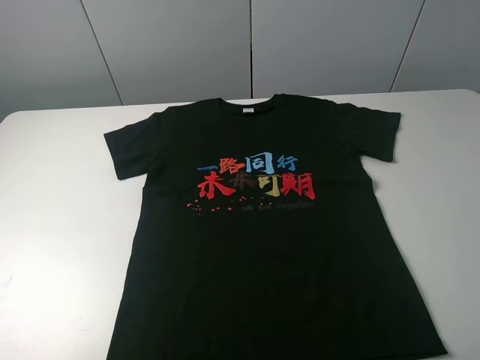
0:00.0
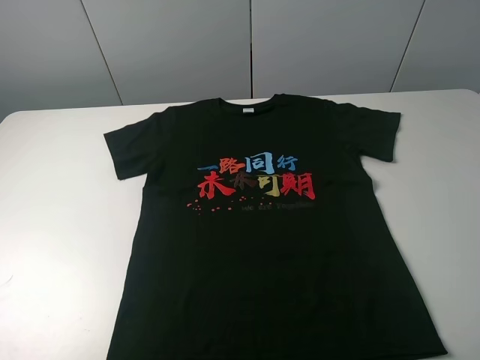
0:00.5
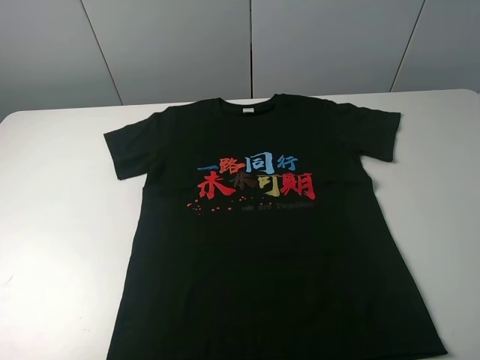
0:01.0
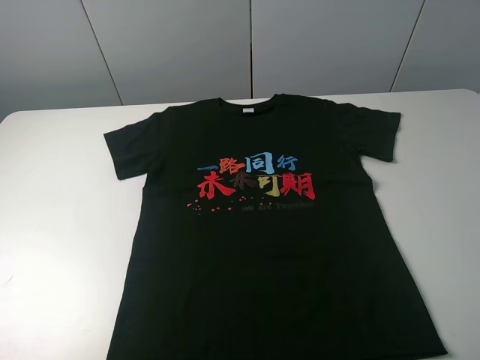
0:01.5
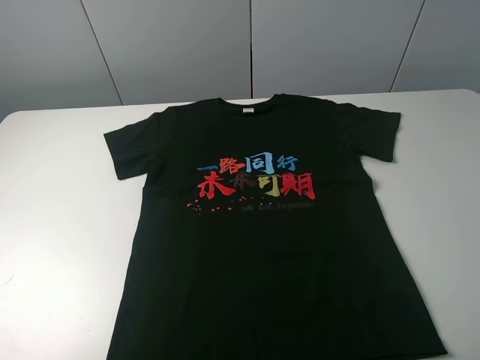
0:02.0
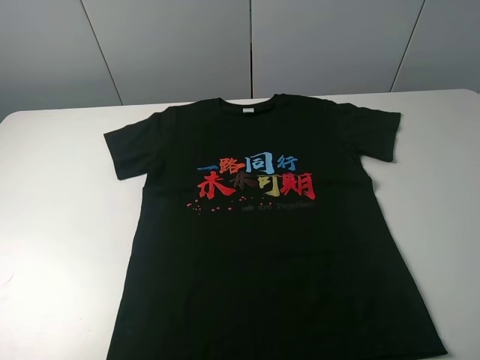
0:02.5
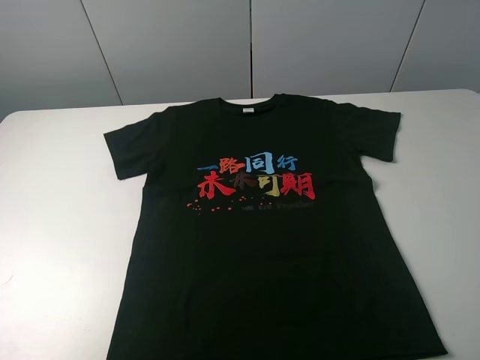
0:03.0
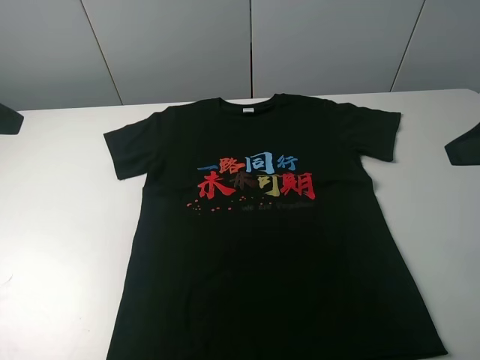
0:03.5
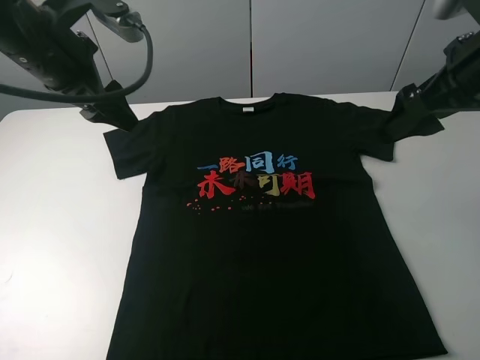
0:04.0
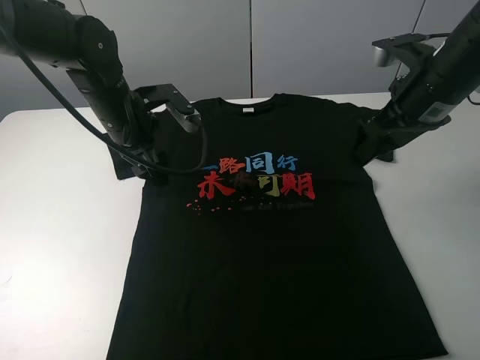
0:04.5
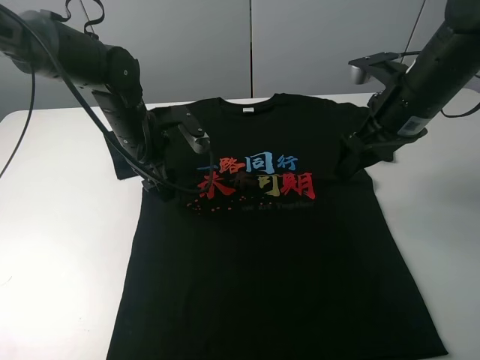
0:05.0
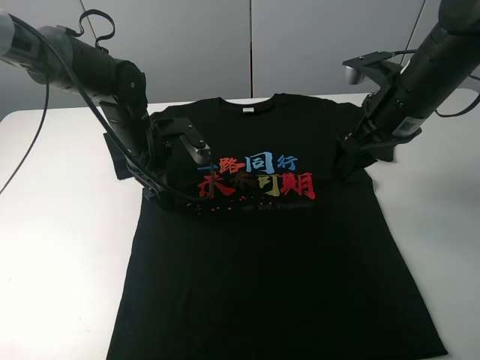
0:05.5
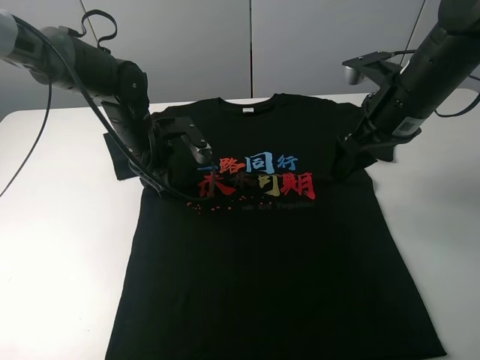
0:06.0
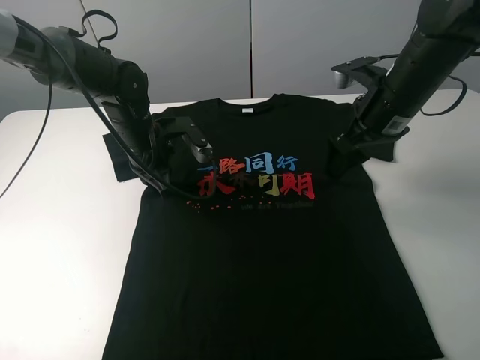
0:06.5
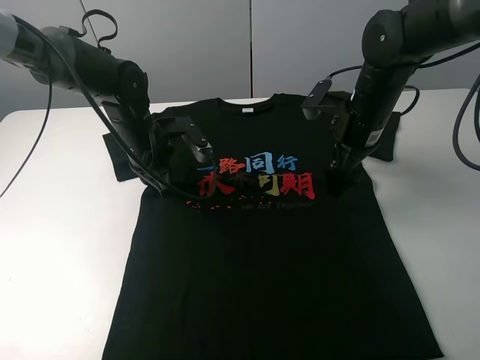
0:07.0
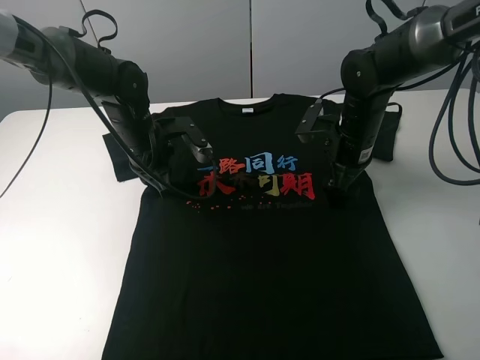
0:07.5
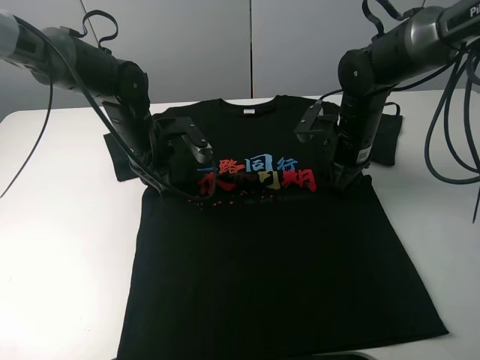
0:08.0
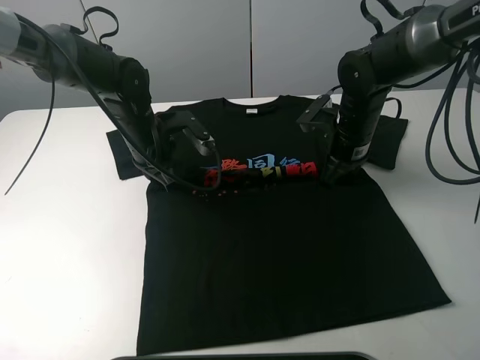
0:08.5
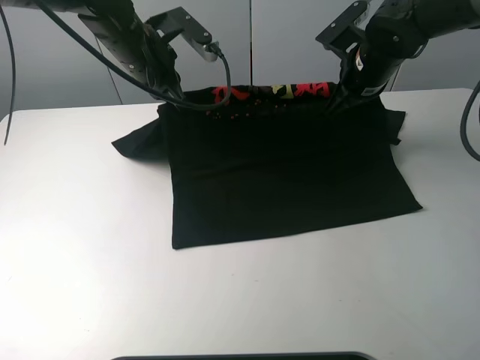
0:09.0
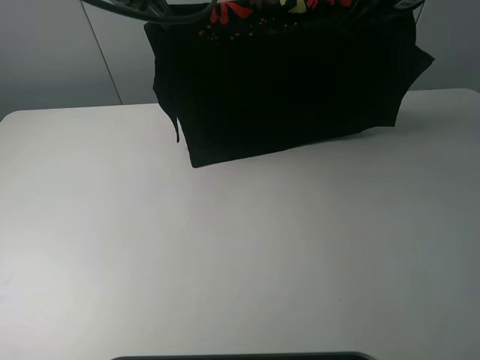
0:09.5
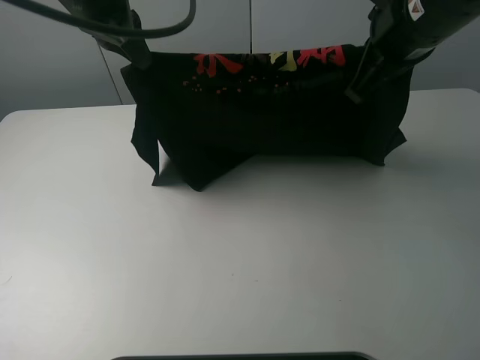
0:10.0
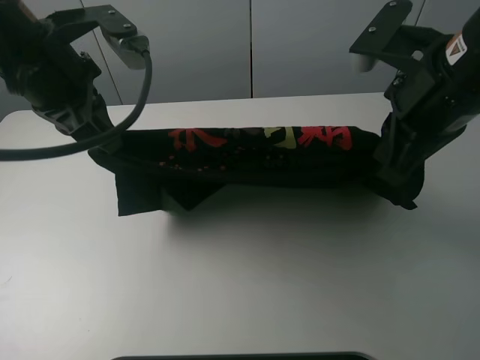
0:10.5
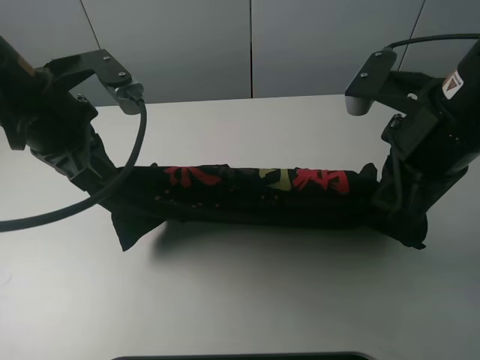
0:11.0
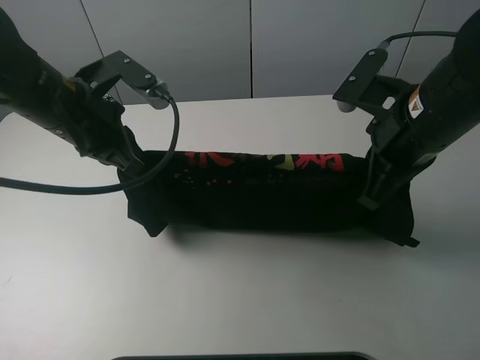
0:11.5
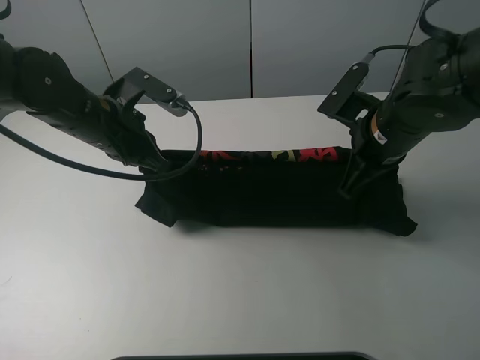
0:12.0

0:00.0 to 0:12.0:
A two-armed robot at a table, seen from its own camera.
Task of the whole recording: fold the clothes on the table.
Step, 0:00.0 to 0:07.0: Lift the black T-shirt with the left gripper.
0:00.0 to 0:02.0: The two grippers keep their place.
0:02.0 to 0:04.0: The left gripper heads forward and to the right, covering roughly 35 cm. Meanwhile the right gripper travels forward by approximately 25 cm.
0:04.0 to 0:06.0: The right gripper shifts about 10 cm downward, while the left gripper travels downward by roughly 15 cm, and closes up.
0:06.0 to 0:08.0: The right gripper travels downward by approximately 10 cm, and closes its fingers.
0:08.0 to 0:10.0: Both grippers travel together upward, some 20 cm.
0:10.0 to 0:12.0: Both grippers move downward, roughly 15 cm.

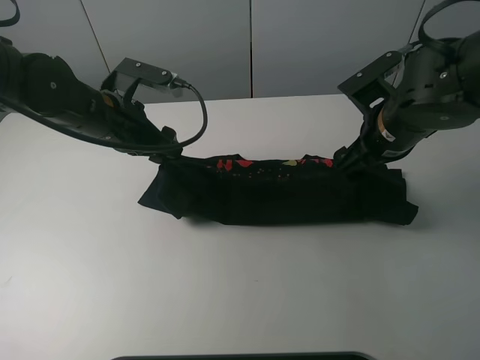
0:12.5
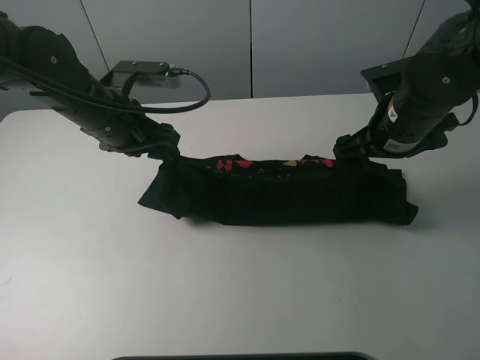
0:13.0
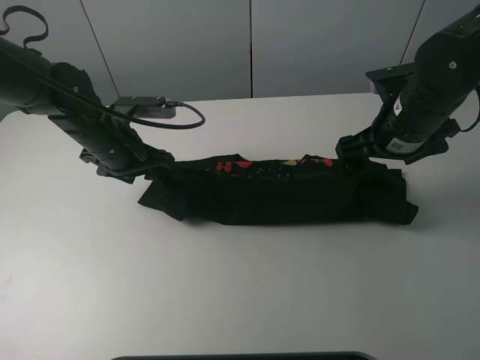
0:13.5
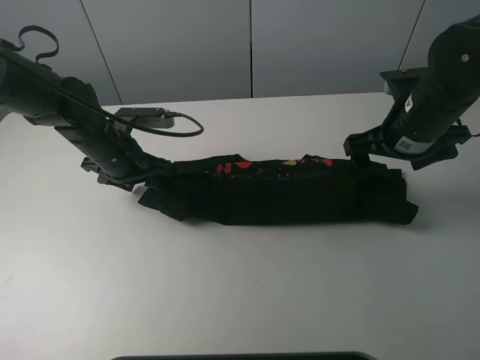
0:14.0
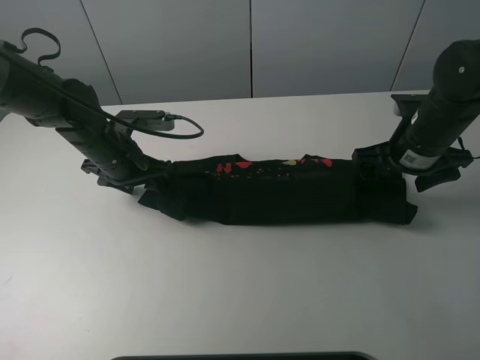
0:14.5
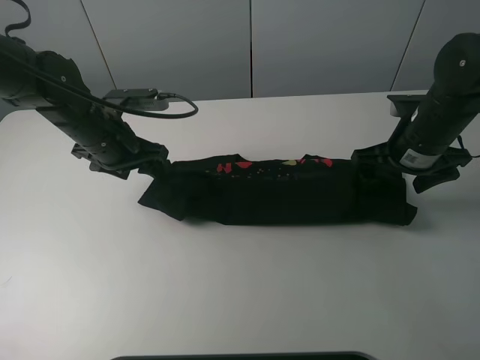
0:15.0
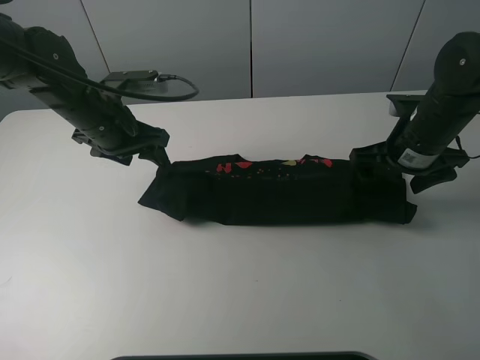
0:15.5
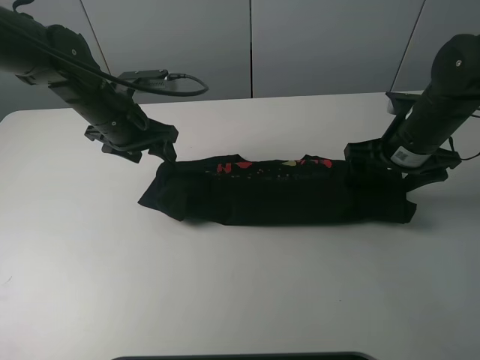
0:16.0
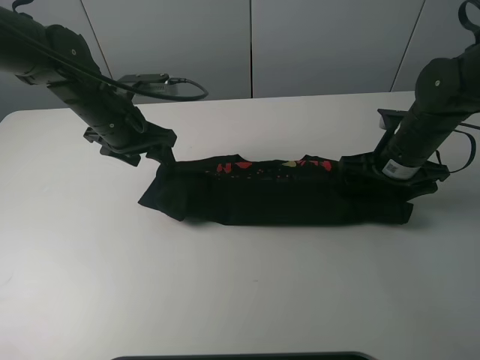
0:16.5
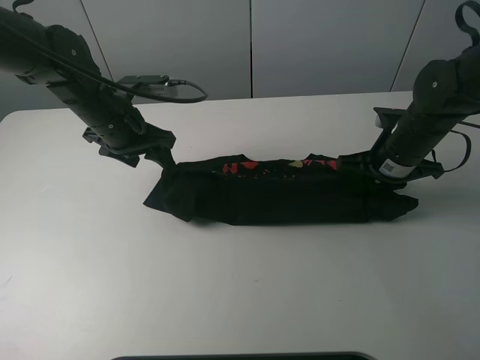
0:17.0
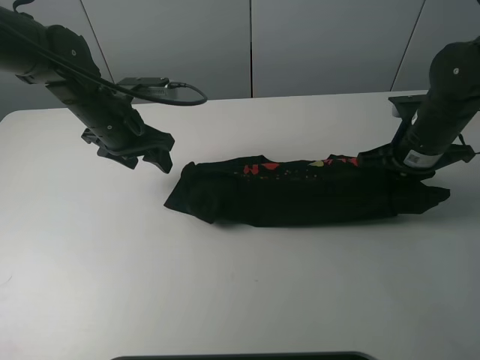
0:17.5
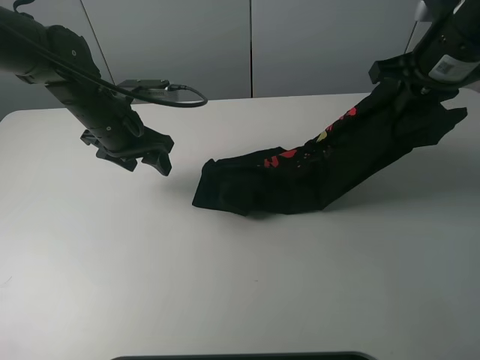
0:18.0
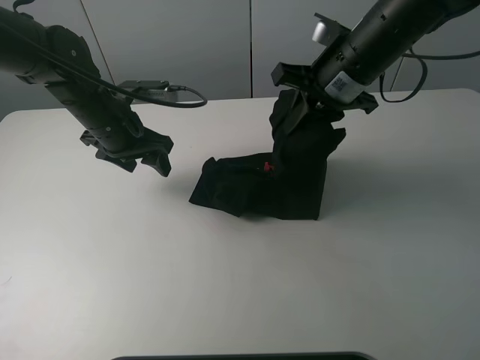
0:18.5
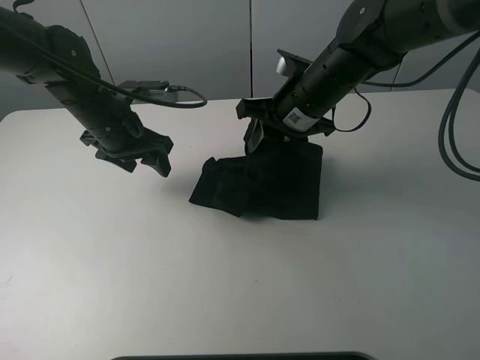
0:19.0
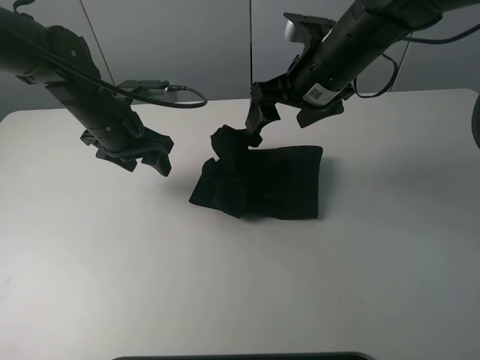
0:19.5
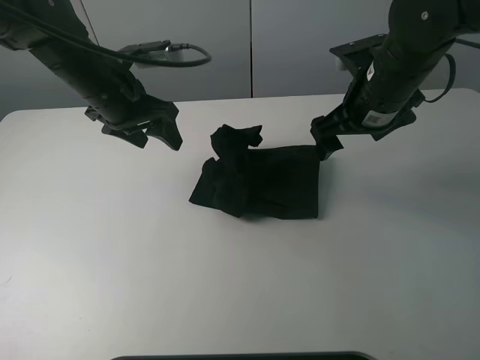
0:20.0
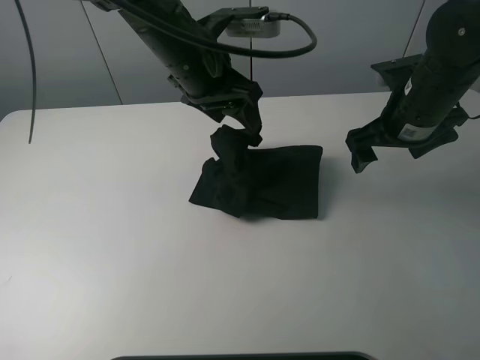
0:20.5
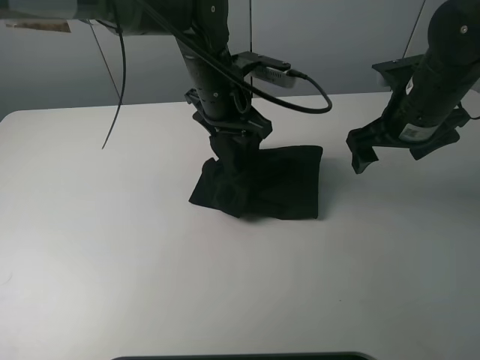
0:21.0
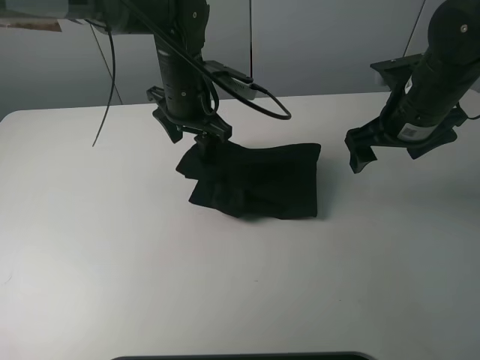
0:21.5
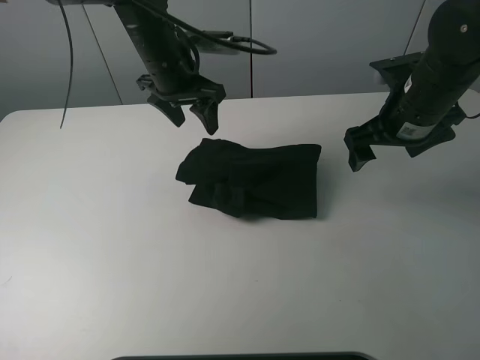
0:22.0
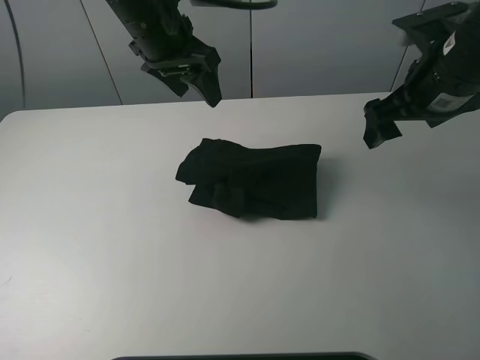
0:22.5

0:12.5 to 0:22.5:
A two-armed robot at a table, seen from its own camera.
Task of the whole recording: fold the clothes on the table.
Step, 0:13.0 to 0:16.5: Grasp the black T-shirt with the right gripper.
Step, 0:17.0 to 0:21.5: Fold the black T-shirt from right to left with right gripper.
0:12.5 to 0:14.5: The left gripper shifts roughly 5 cm downward, while the right gripper goes some 5 cm to the right.
0:14.5 to 0:16.5: The left gripper goes roughly 5 cm upward.
0:16.5 to 0:18.5: The right gripper travels upward and to the left by approximately 15 cm, and closes up.
0:18.5 to 0:20.5: The left gripper shifts some 15 cm to the right and upward. Meanwhile the right gripper goes roughly 10 cm to the right, and opens up.
0:20.5 to 0:22.5: The right gripper is displaced upward by approximately 5 cm, while the left gripper travels to the left by roughly 5 cm.

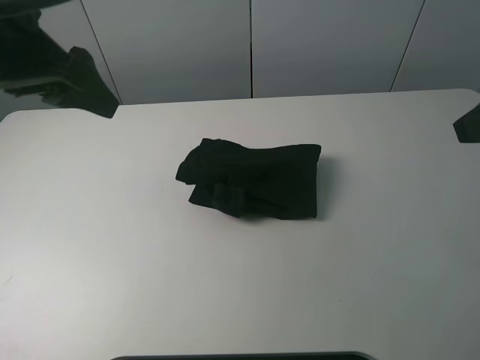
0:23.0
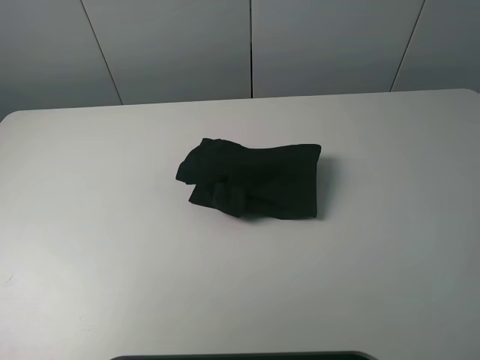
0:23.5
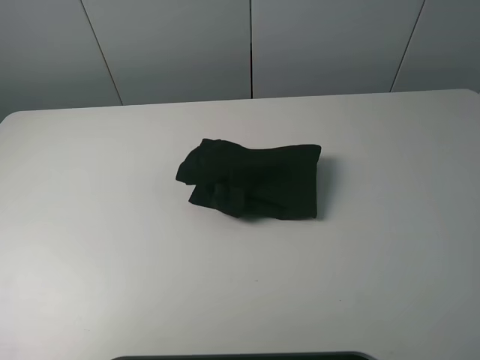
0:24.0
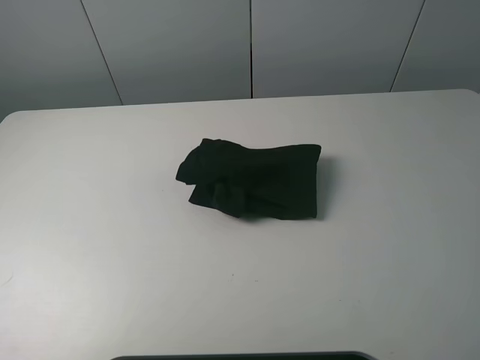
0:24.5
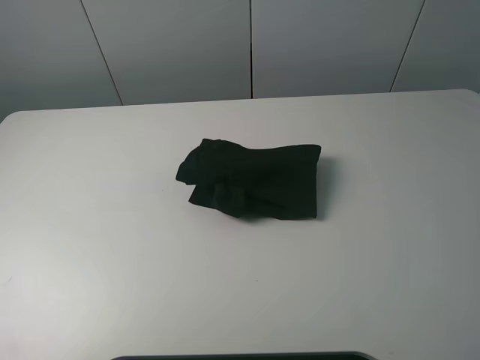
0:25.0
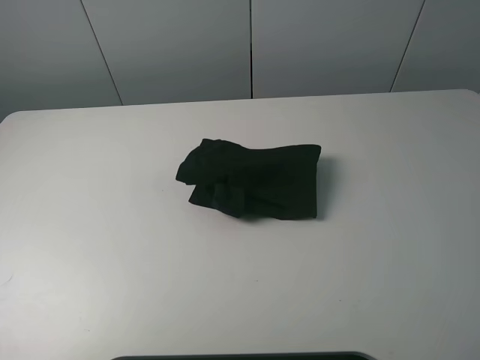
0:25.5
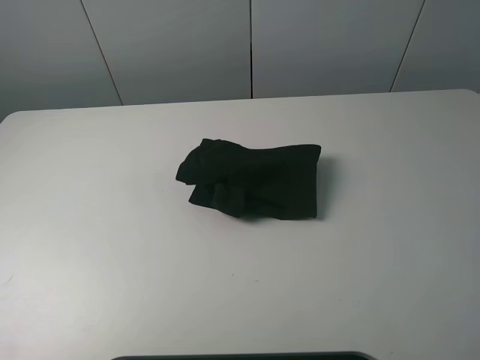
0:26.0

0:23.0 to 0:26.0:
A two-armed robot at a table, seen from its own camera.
Task of the whole recording: fold the clothes on the table.
0:23.0 to 0:24.5: The left gripper travels backward and to the left by roughly 25 cm.
